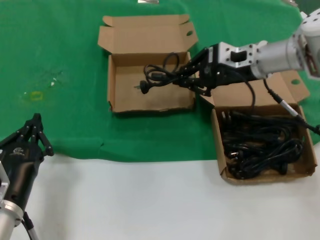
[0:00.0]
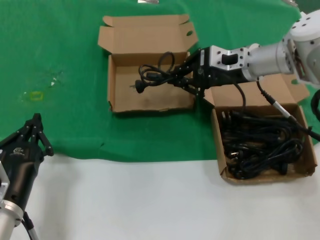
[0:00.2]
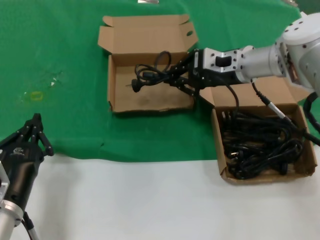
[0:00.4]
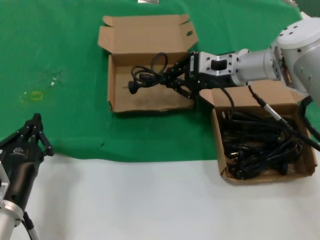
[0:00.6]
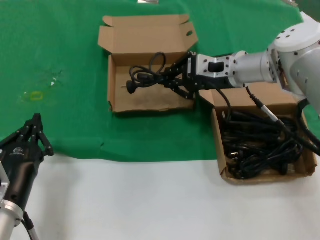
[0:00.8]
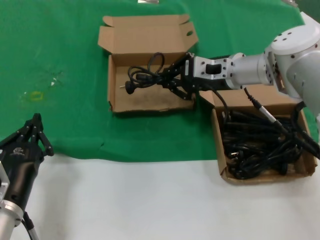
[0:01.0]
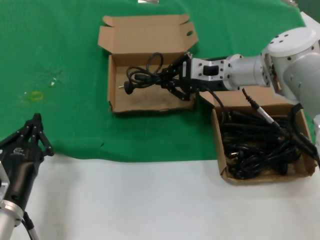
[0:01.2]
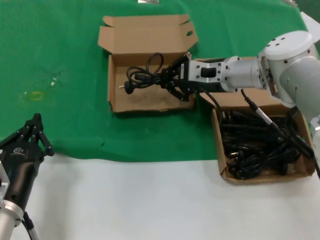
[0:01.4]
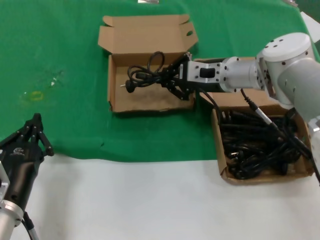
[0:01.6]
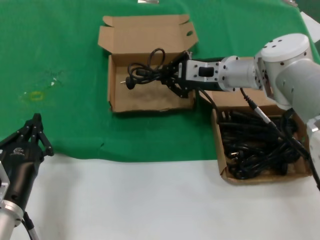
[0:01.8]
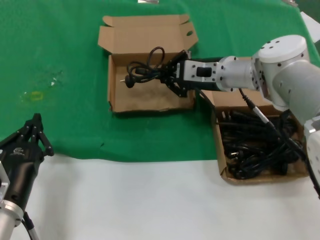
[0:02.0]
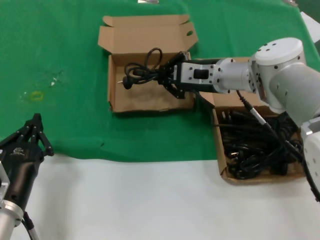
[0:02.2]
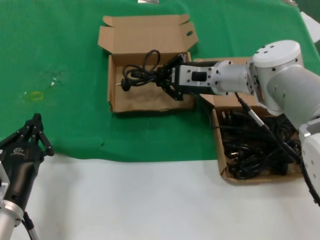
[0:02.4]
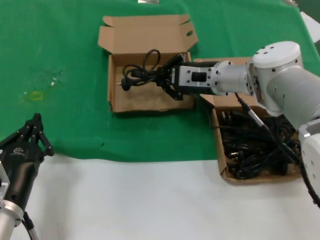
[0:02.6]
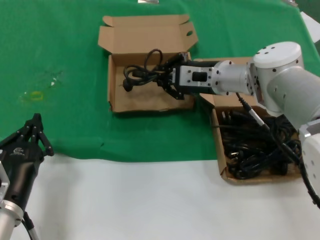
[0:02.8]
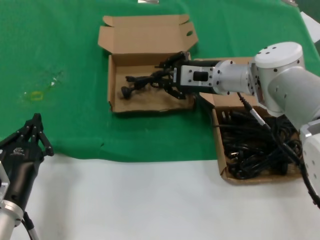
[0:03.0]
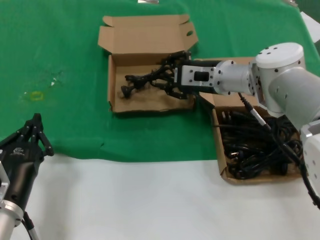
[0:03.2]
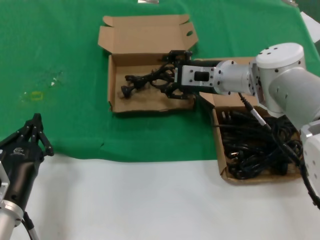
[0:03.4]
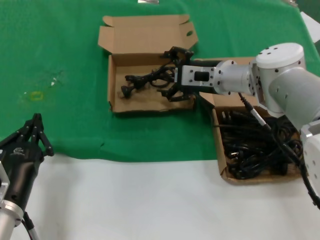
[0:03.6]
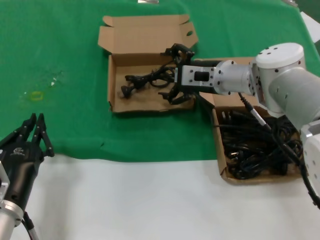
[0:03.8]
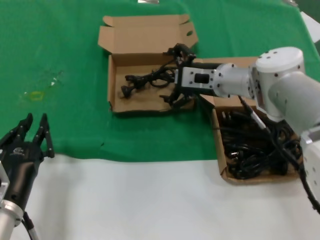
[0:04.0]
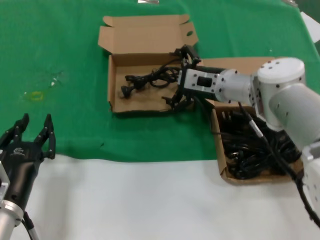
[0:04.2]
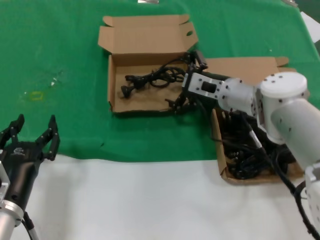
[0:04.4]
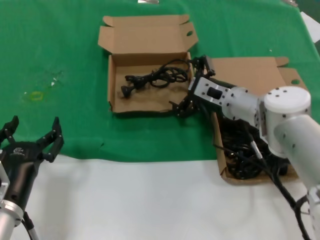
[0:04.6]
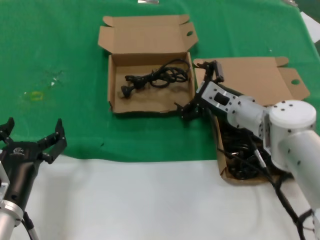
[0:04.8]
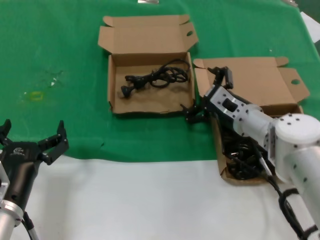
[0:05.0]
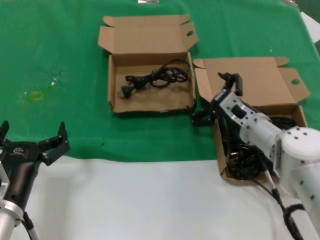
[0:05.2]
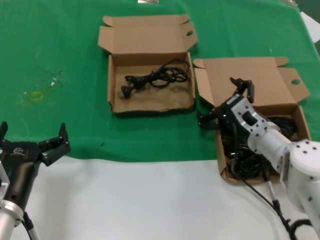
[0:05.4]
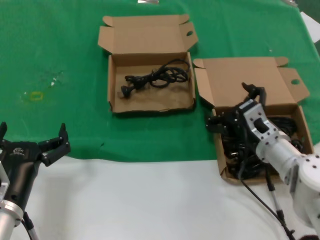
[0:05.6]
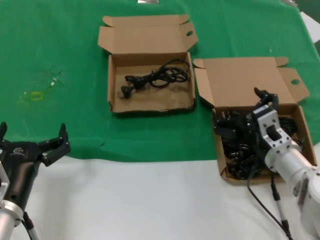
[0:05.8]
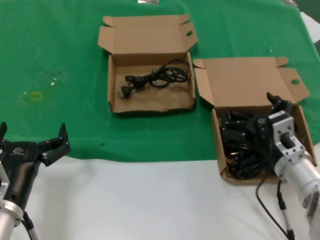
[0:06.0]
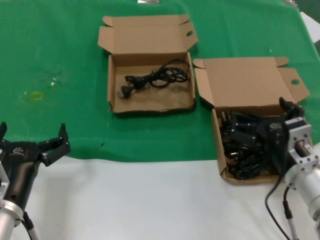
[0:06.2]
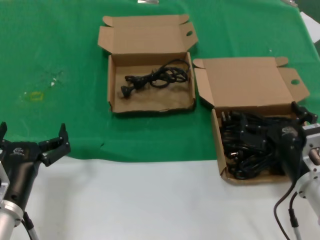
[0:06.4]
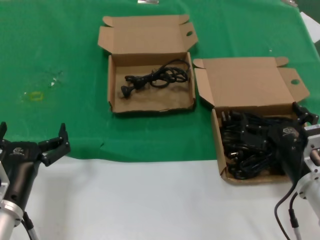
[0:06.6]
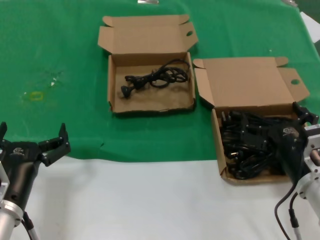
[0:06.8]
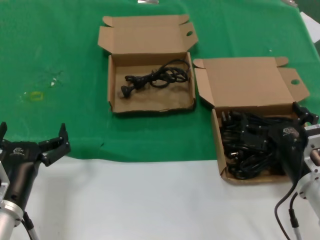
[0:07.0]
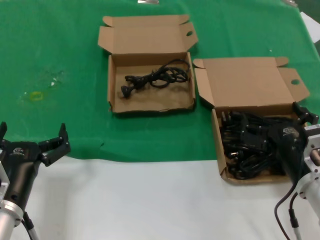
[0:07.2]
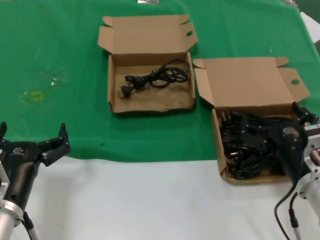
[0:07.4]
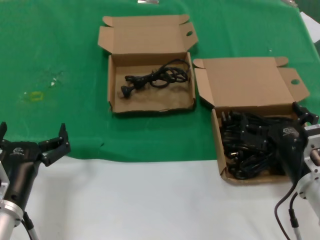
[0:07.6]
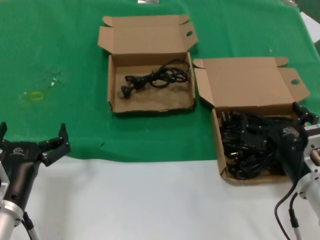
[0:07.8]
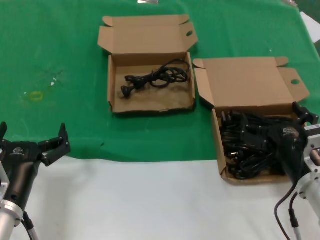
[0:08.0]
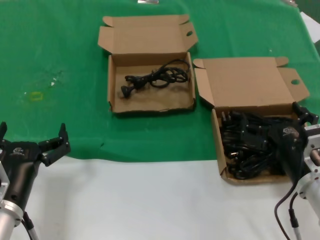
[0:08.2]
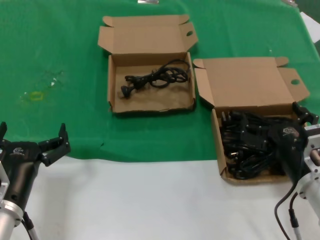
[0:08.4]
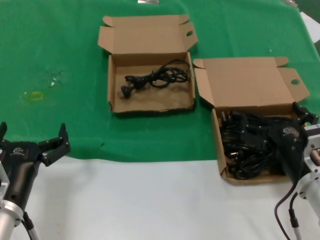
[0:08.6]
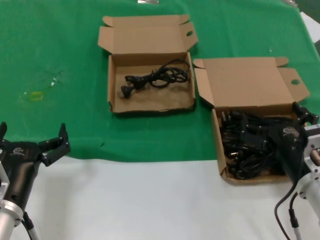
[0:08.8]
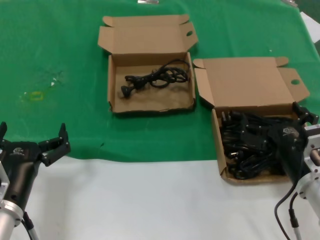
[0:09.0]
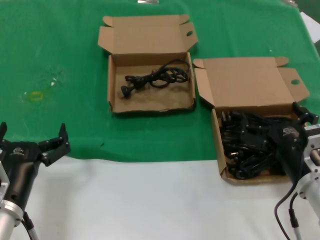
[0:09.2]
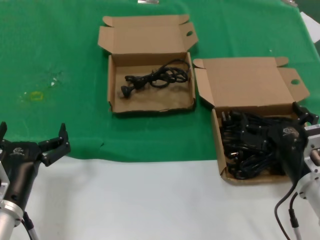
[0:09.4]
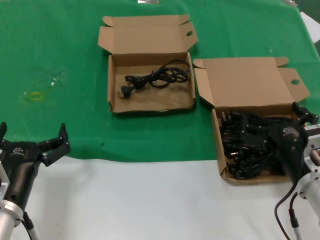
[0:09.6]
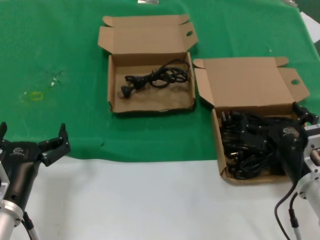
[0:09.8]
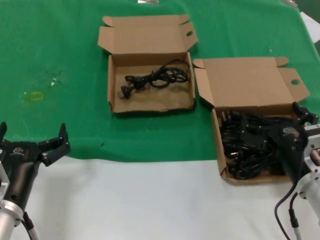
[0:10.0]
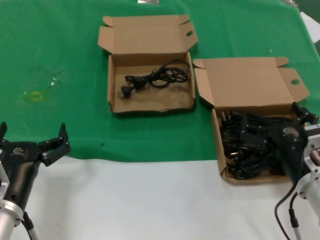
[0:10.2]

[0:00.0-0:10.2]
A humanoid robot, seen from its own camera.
Task of the whole recording: take the parts from the box containing them and put them into an empty box.
Step, 0:00.0 to 0:03.2: Place the data cable in the another box.
0:00.0 to 0:01.4: The right hand shifts about 5 cm to the left.
0:01.4 to 0:04.4: There are only small adjustments of the hands.
0:04.4 to 0:05.8: The right hand goes approximately 20 cm backward, downward and to the right.
0:05.8 to 0:07.2: The right hand is displaced backward by roughly 10 cm.
0:07.2 to 0:10.2: Both hands stay about where they are.

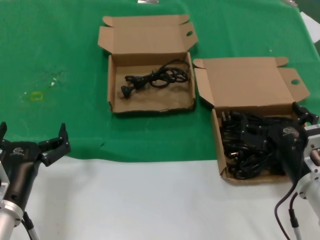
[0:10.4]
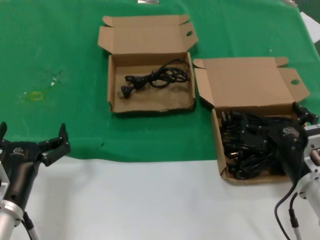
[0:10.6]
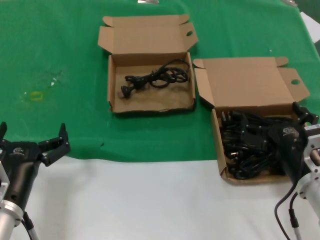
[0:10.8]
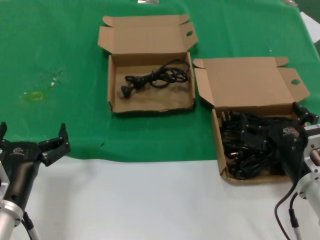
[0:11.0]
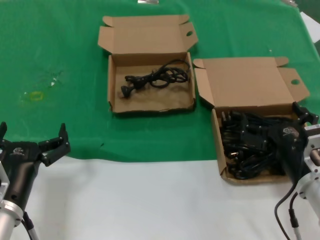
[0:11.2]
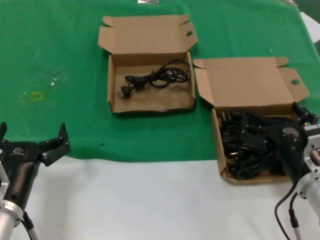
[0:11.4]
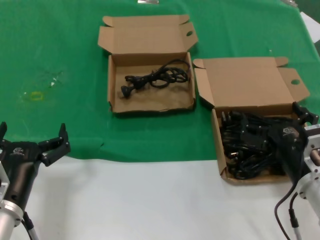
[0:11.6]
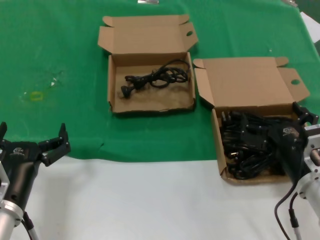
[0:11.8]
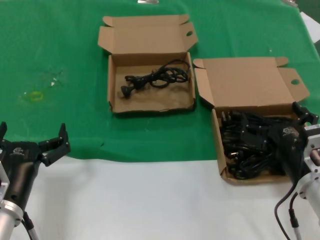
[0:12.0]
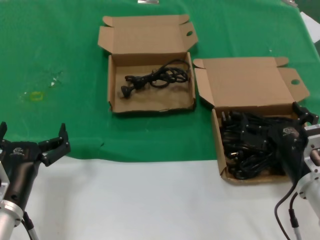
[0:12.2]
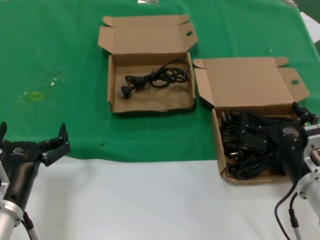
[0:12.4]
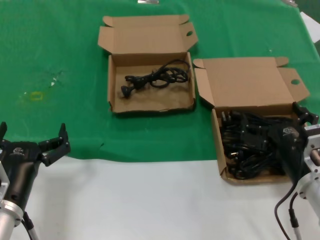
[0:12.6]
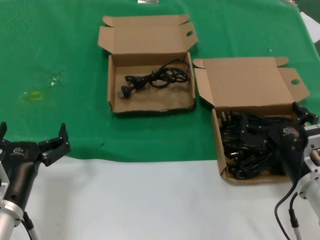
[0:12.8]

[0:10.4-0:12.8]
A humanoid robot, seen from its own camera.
Task of the whole recording: take the parts from the box containing them and put them into an empty box.
0:10.4 to 0:12.8: Neither hand changes place.

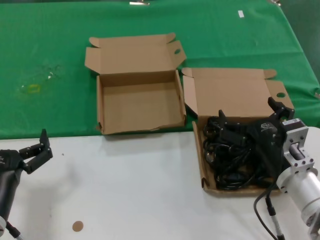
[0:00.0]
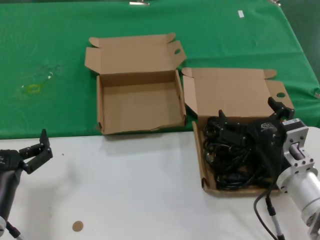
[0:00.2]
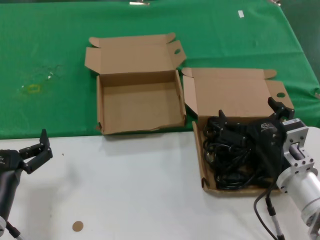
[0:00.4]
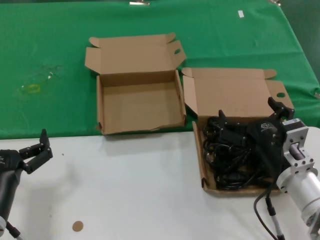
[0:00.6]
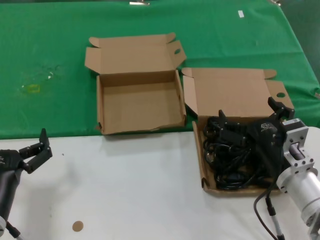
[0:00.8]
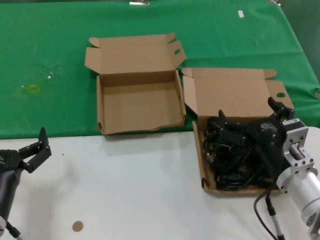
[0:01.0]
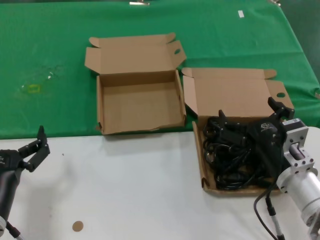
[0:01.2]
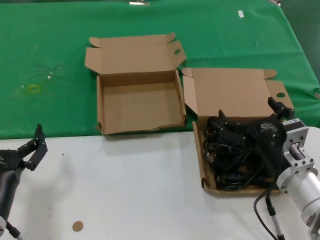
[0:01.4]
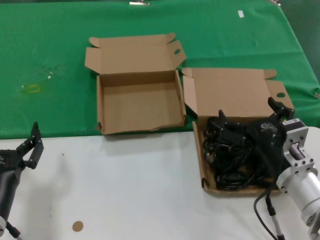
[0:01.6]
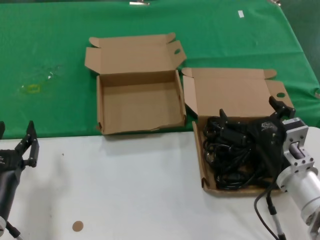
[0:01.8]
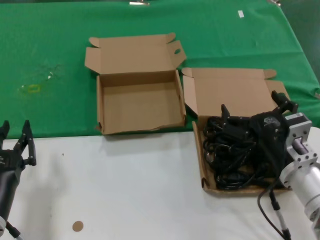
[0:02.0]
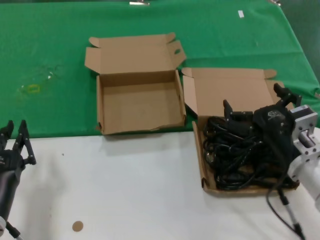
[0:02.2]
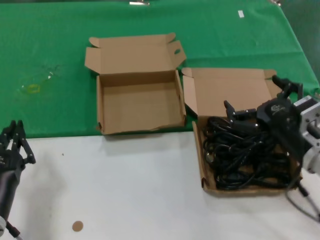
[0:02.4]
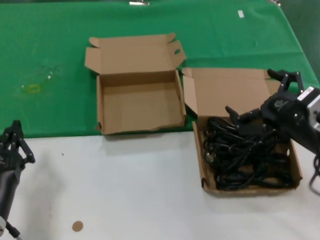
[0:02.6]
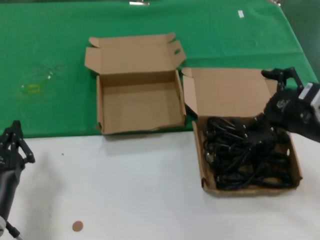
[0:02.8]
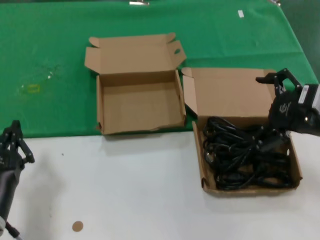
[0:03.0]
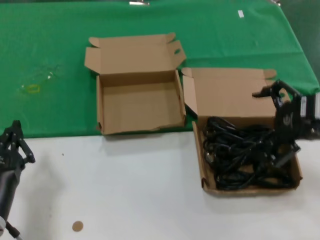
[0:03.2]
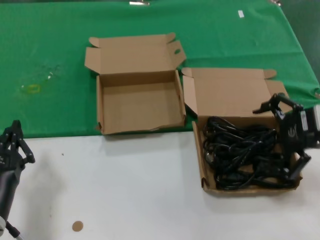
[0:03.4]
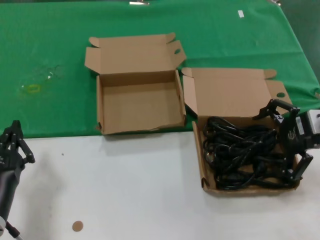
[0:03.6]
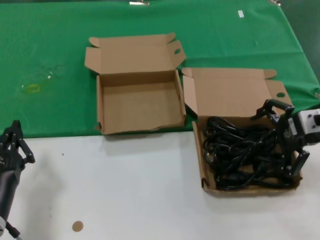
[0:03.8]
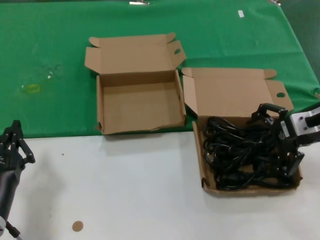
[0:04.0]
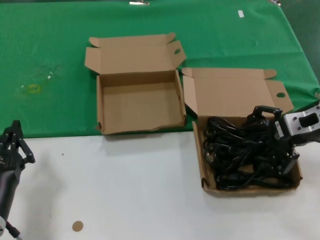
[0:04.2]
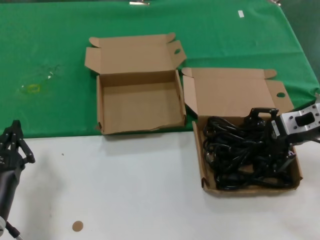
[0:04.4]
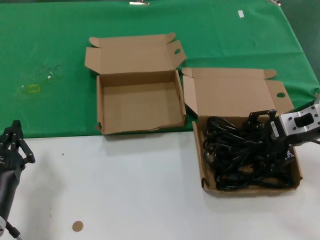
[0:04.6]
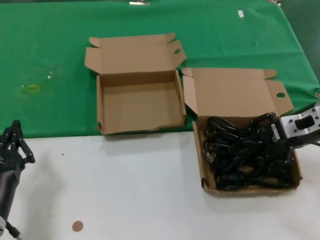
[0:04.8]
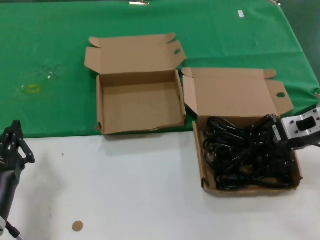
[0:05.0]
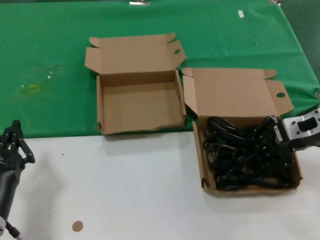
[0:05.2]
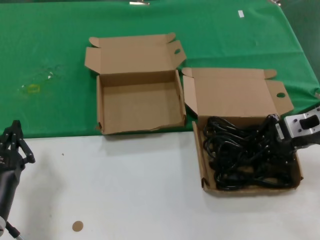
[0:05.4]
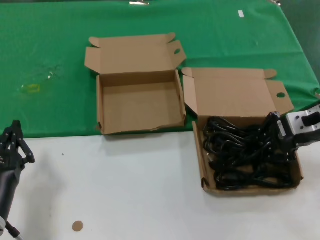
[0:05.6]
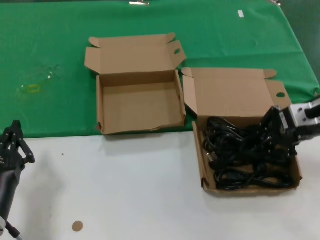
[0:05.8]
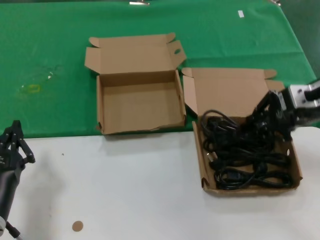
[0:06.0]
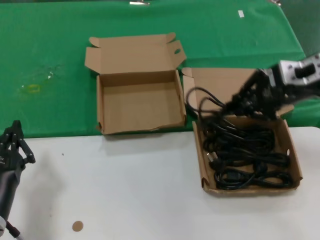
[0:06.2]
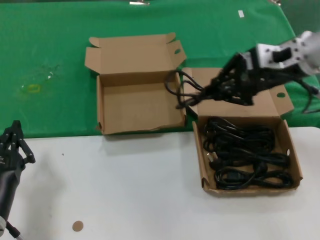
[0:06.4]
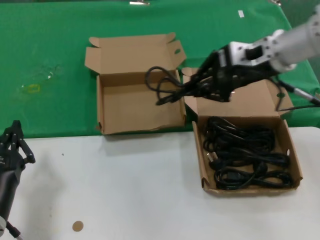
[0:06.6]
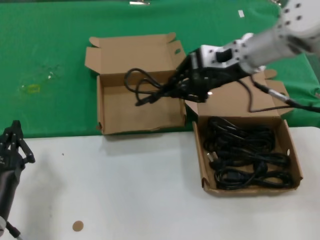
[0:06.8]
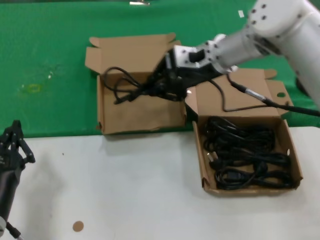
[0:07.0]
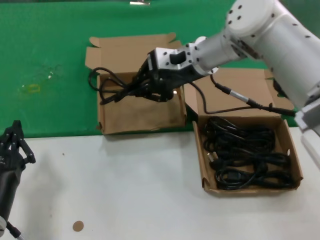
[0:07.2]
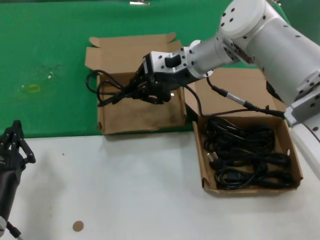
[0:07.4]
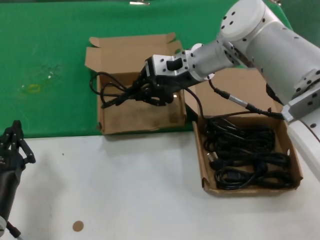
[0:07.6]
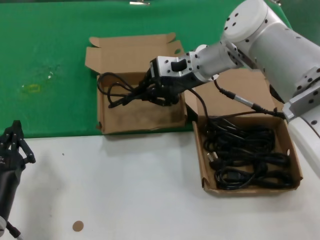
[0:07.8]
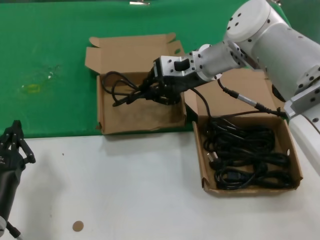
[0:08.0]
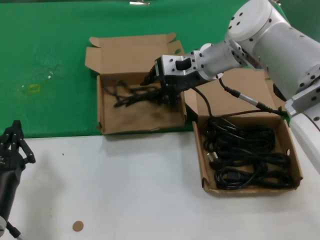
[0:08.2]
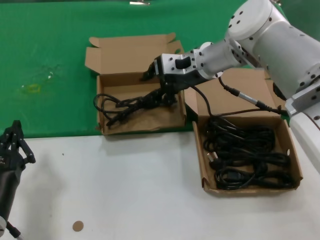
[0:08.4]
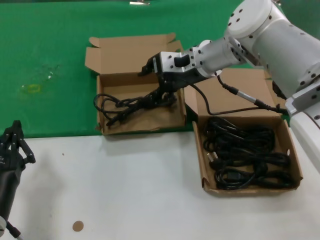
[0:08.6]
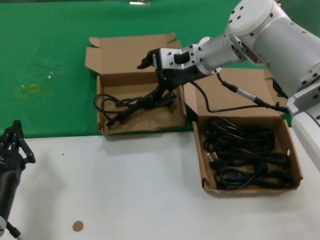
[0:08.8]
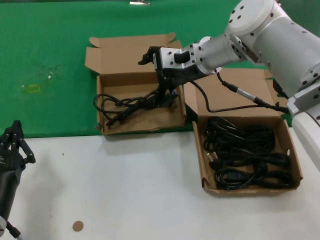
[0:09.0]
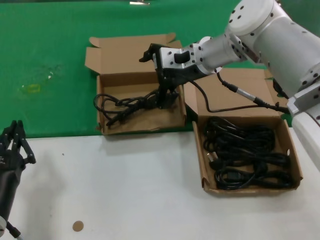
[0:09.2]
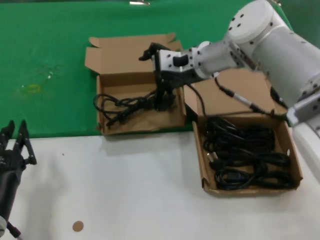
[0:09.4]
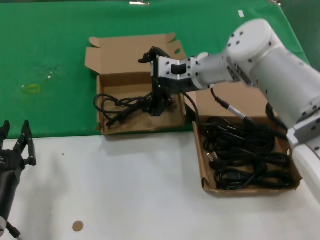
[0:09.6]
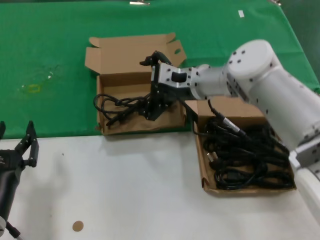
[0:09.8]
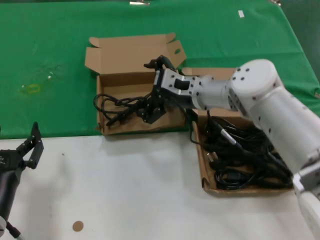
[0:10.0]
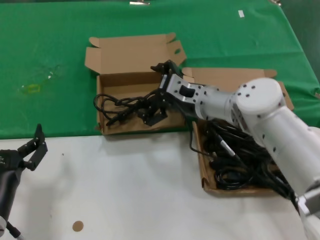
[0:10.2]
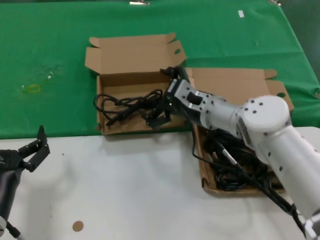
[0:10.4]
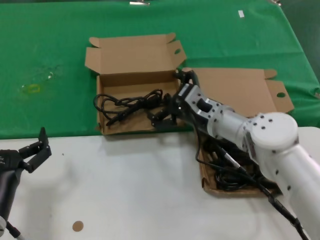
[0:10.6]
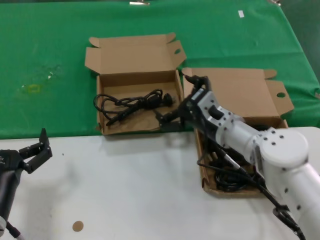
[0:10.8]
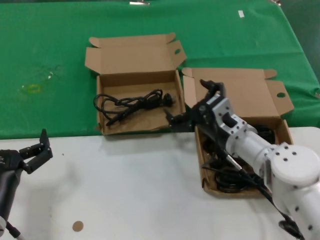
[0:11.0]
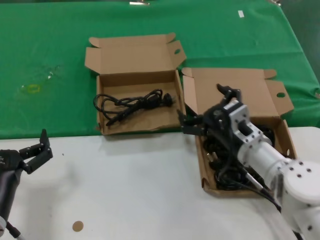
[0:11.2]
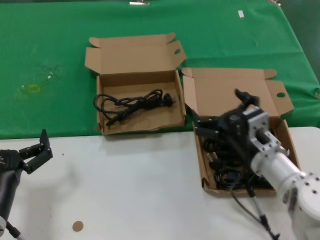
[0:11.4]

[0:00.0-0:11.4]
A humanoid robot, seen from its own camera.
Task of the whole recording: take the parts from the box containing them and put them into an empty box.
Step, 0:00.0 to 0:05.2: Grasp the data cable.
Step, 0:05.6 to 0:08.4: Place the data cable in the another box.
0:00.0 to 0:01.4: Both hands stay about where they are.
0:01.4 to 0:02.8: The right hand is displaced upward and to the right by roughly 15 cm.
0:02.8 to 0:04.2: The right hand shifts approximately 10 cm forward.
0:04.2 to 0:05.6: The two hands keep their place.
0:05.6 to 0:07.2: The right hand is displaced to the left and forward by some 25 cm.
0:07.2 to 0:08.6: There are only small adjustments of the hands.
0:08.6 to 0:10.0: The right hand is displaced downward by approximately 10 cm.
0:10.0 to 0:11.4: The right hand heads backward, downward and to the right, covering some 20 cm.
